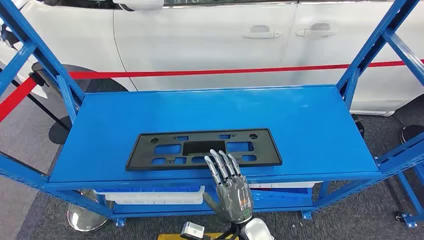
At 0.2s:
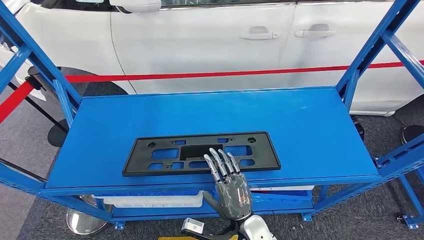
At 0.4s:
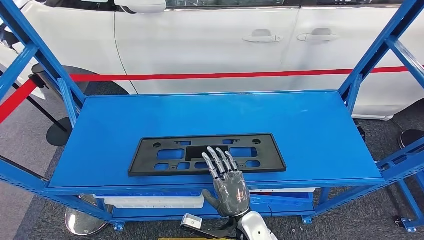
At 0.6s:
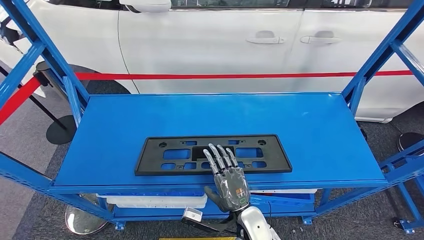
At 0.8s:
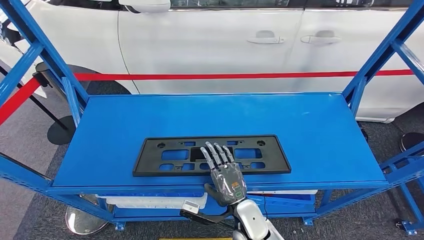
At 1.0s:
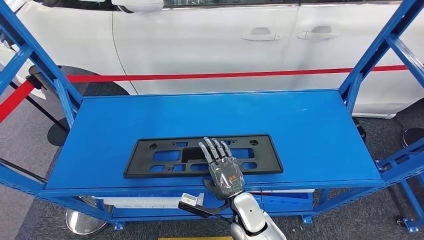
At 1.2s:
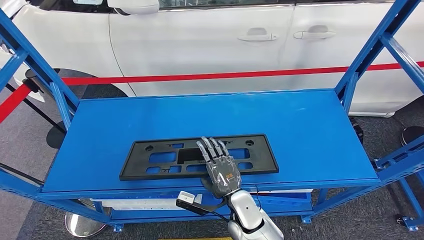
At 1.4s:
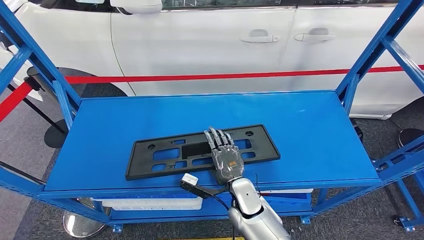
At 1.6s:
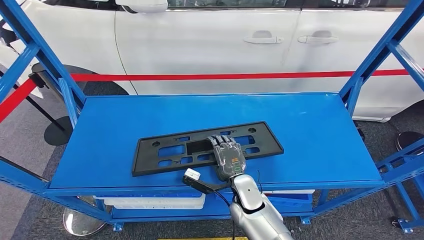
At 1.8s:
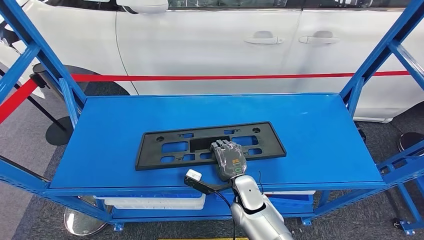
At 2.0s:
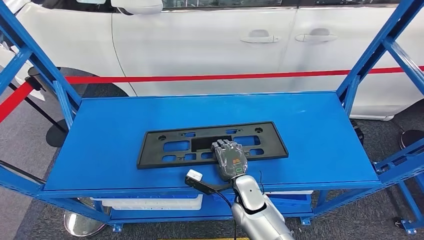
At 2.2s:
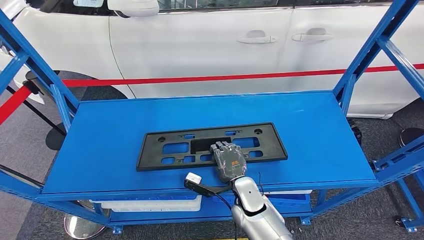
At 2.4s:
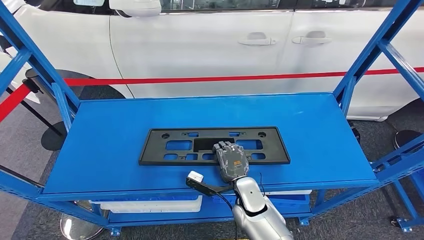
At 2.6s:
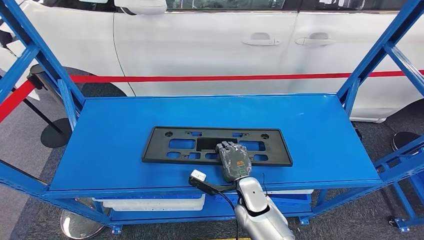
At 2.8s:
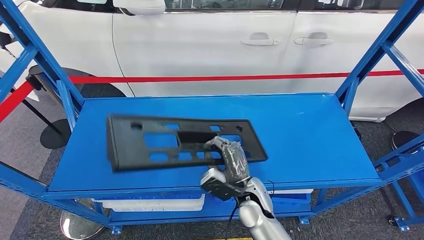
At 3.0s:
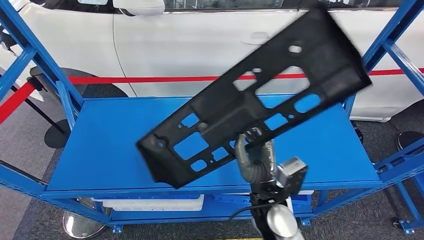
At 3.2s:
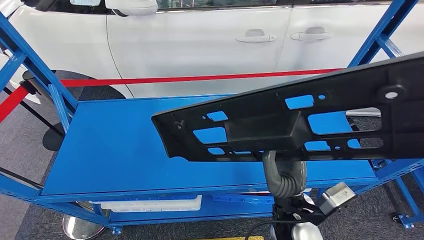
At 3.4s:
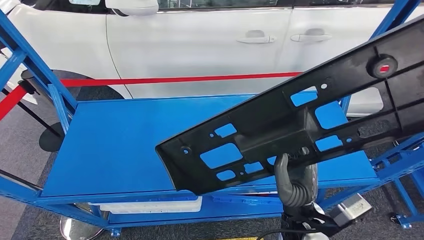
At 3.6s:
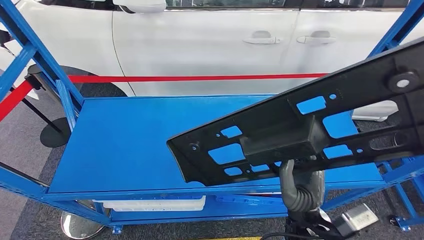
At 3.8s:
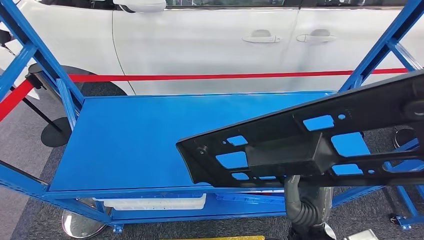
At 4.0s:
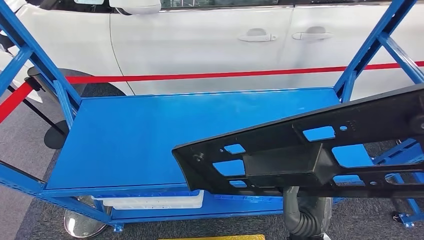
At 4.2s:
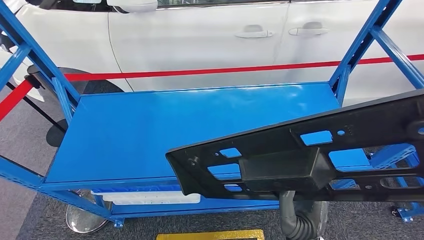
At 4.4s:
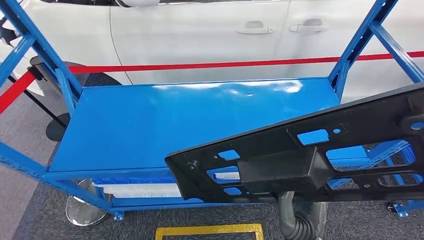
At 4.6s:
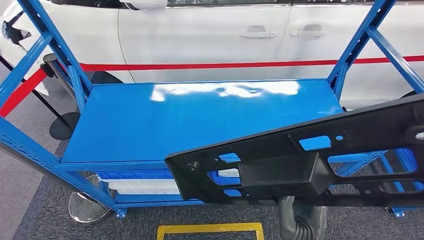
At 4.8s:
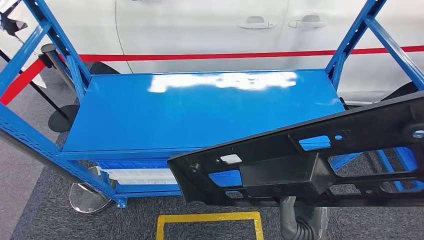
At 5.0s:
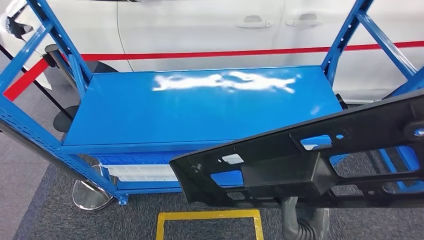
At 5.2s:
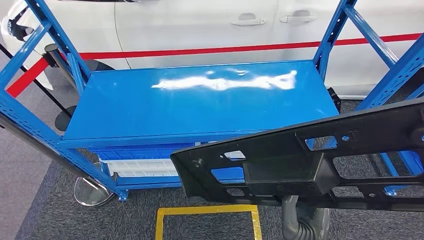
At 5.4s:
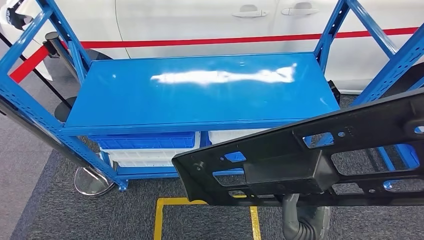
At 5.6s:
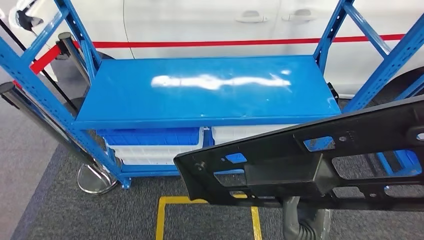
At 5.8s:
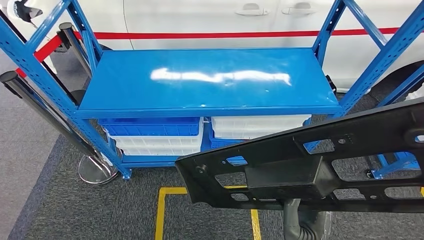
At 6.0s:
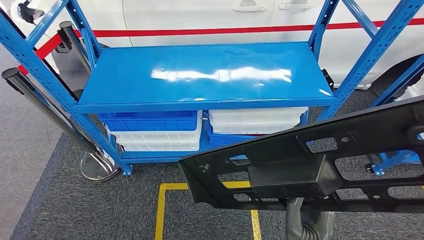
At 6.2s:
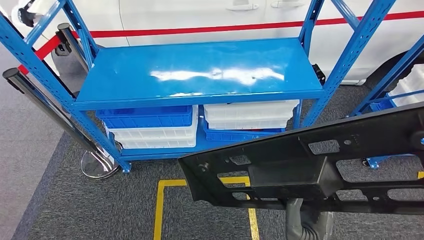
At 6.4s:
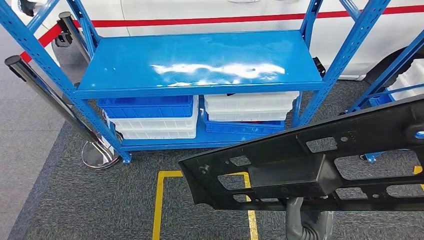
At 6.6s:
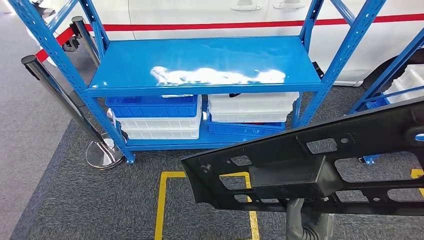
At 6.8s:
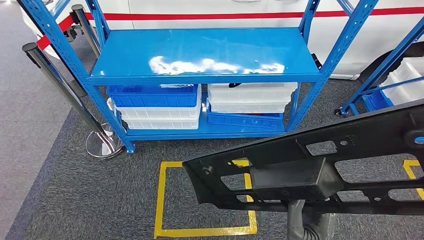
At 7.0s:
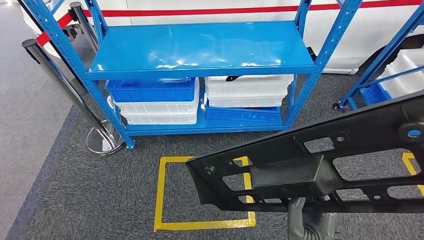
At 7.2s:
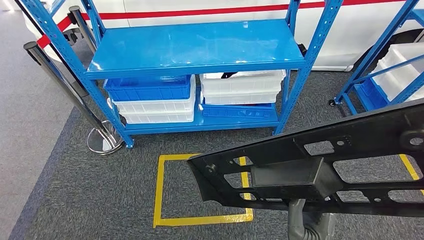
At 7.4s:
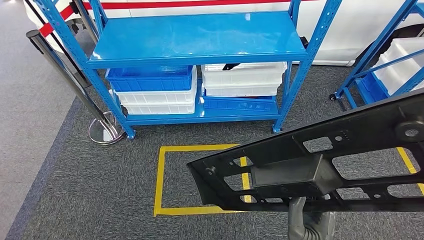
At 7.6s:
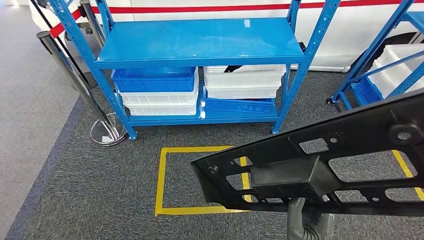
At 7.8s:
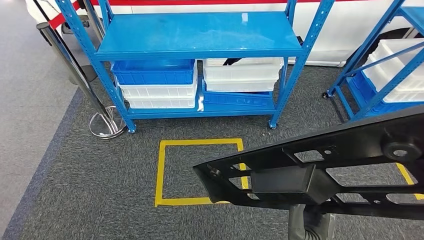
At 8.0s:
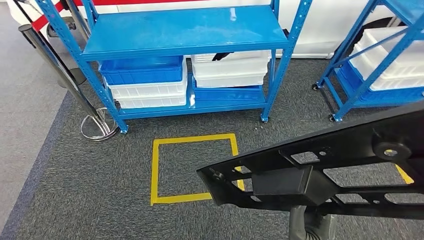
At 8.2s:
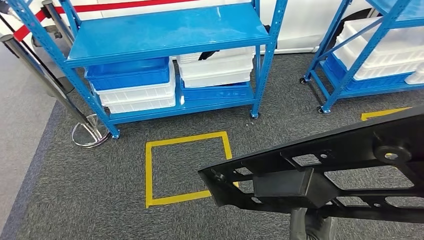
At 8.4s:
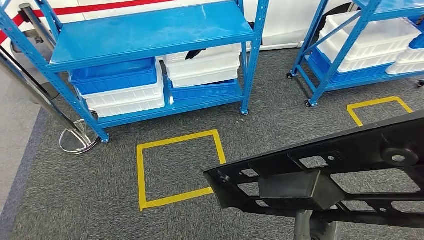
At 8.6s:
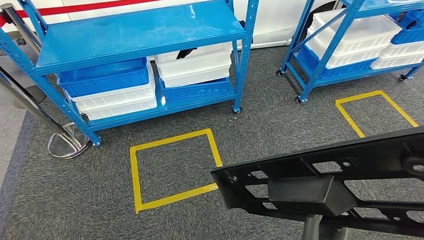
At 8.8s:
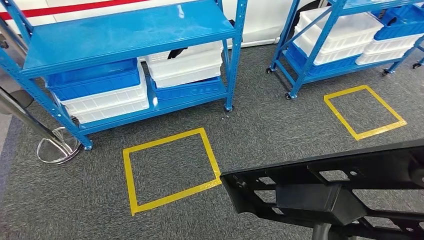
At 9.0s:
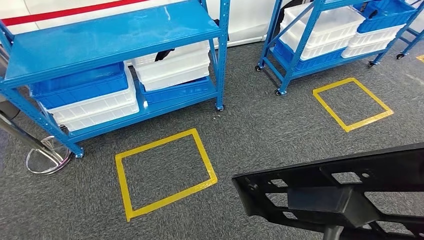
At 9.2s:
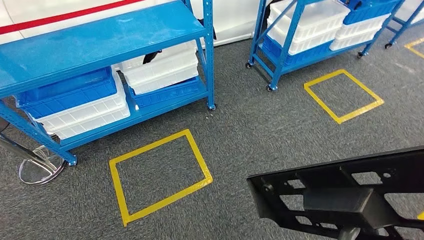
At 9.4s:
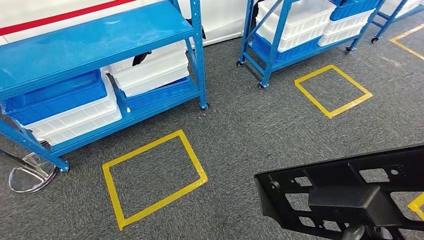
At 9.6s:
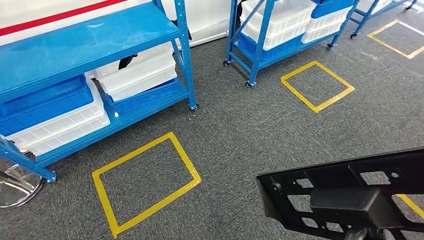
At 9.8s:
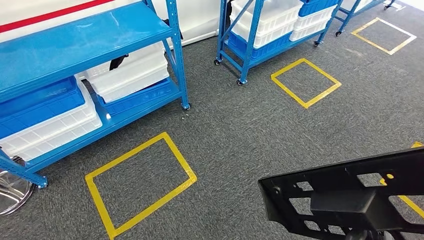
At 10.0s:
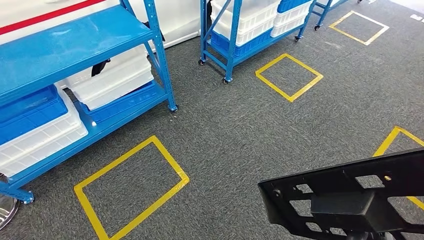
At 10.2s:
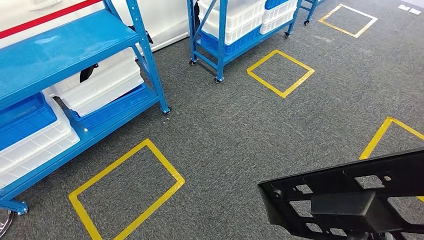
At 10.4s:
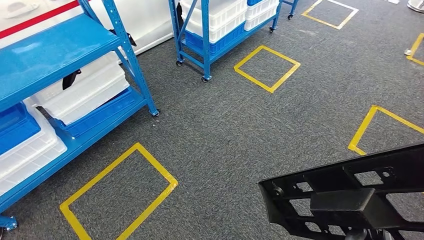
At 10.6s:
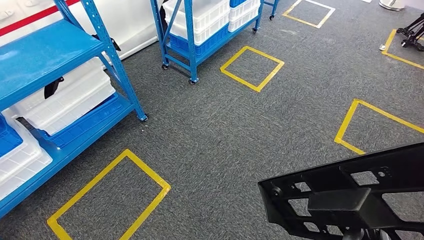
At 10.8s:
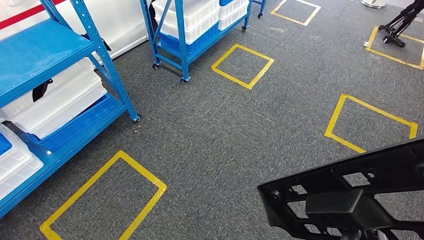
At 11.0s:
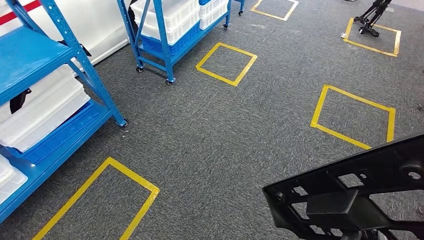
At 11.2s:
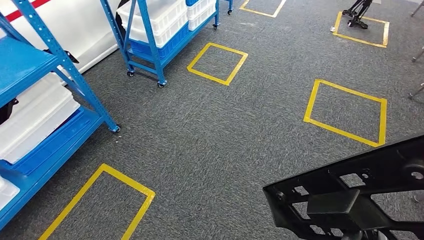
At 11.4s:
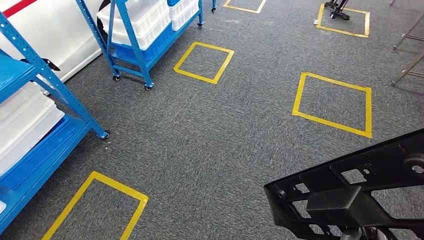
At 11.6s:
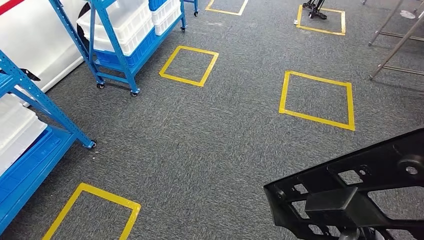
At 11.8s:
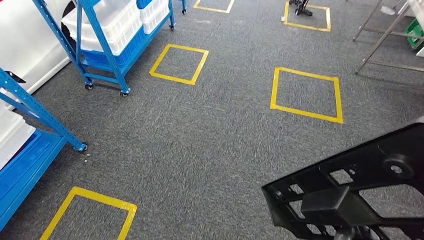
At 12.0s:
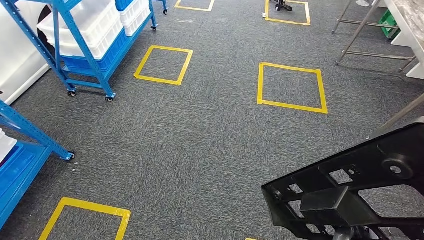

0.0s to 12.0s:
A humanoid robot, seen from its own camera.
Step, 0.0s to 6.8s: Pick up the large material from the shelf.

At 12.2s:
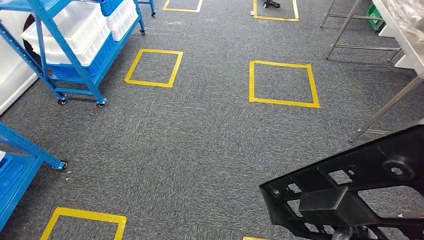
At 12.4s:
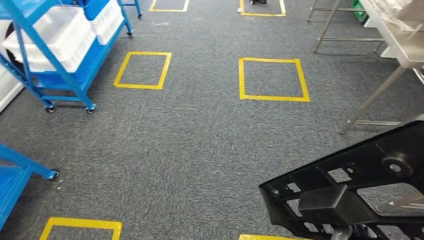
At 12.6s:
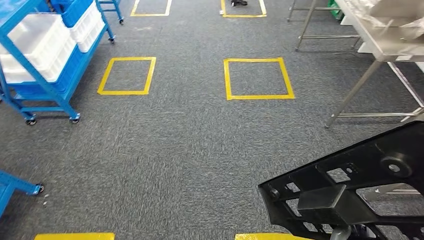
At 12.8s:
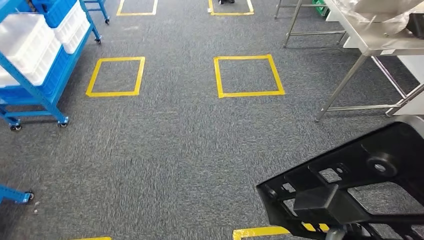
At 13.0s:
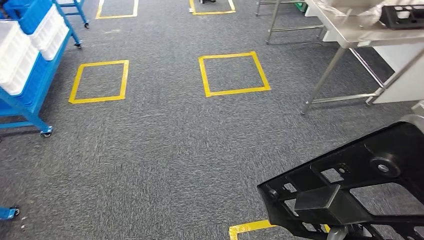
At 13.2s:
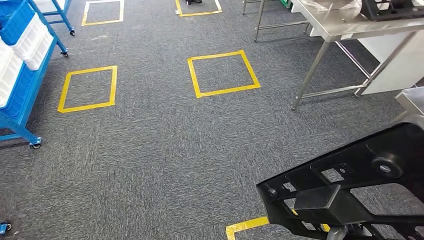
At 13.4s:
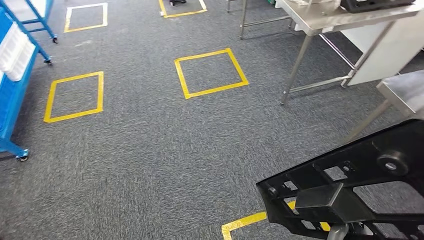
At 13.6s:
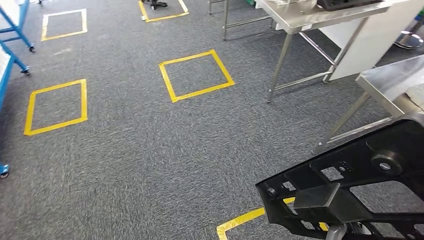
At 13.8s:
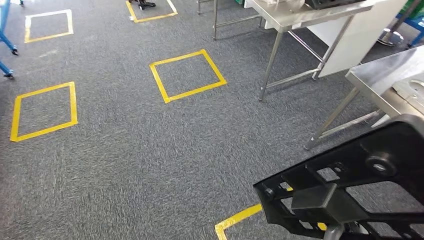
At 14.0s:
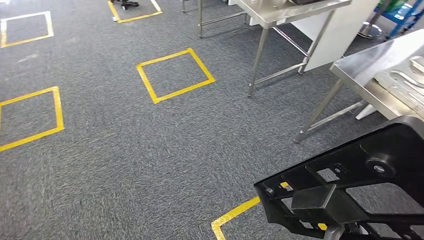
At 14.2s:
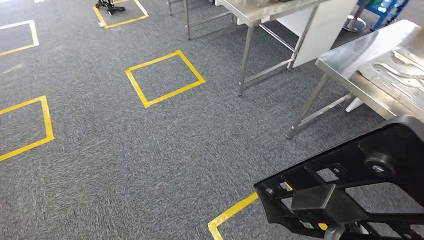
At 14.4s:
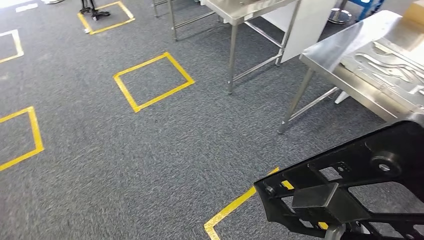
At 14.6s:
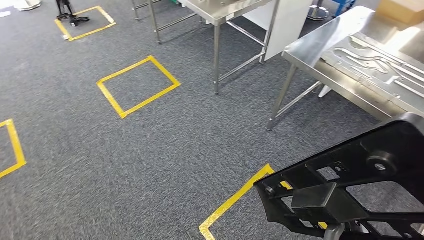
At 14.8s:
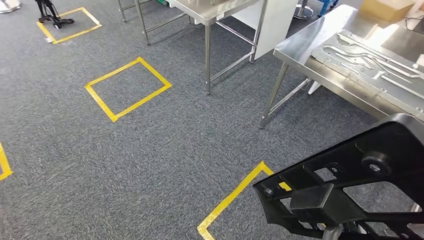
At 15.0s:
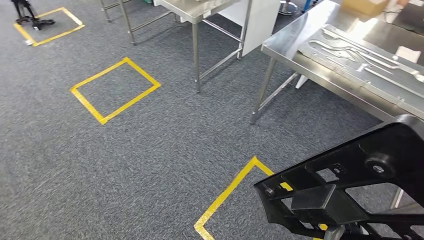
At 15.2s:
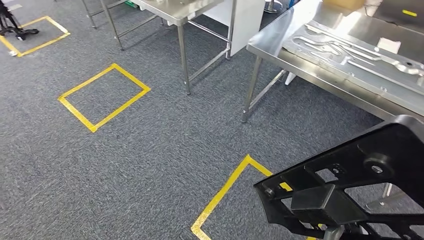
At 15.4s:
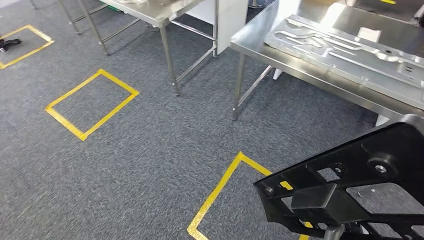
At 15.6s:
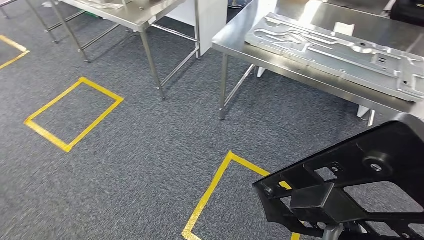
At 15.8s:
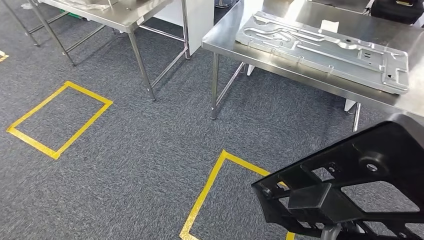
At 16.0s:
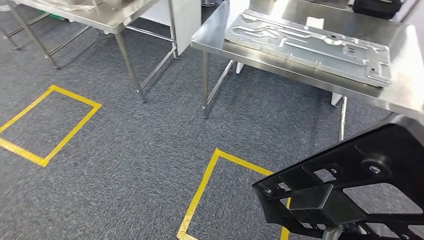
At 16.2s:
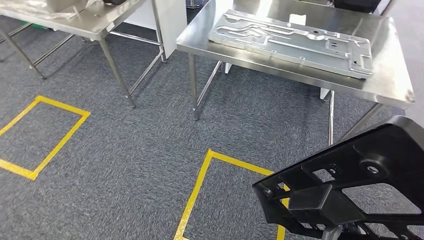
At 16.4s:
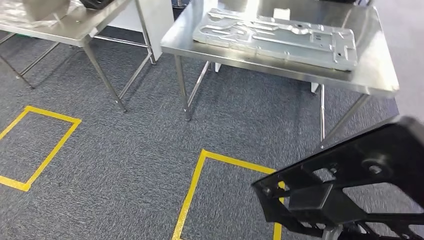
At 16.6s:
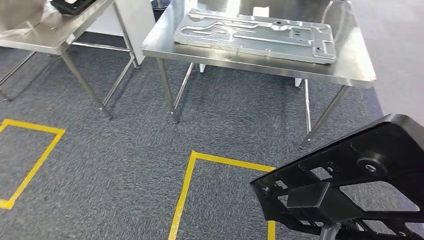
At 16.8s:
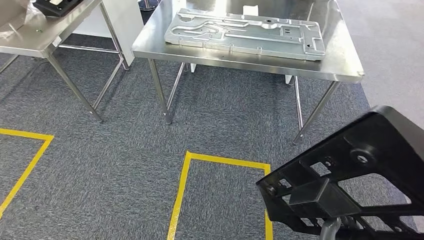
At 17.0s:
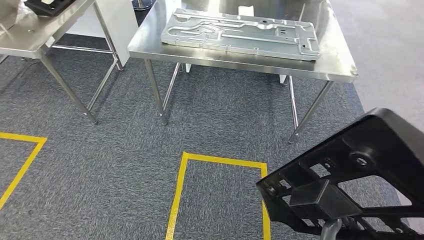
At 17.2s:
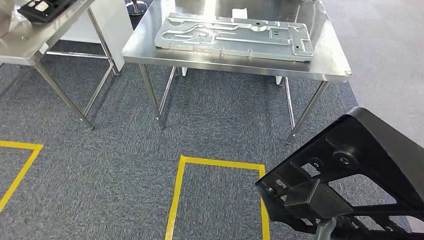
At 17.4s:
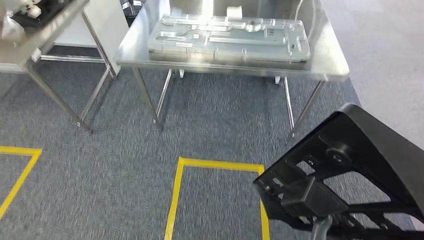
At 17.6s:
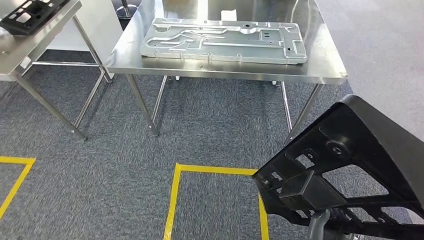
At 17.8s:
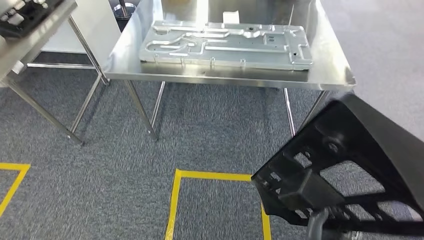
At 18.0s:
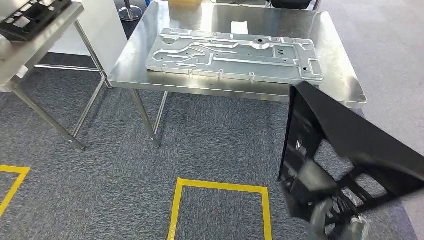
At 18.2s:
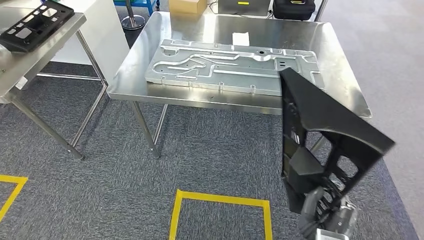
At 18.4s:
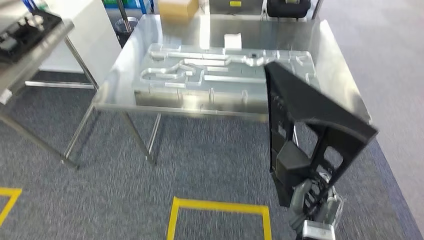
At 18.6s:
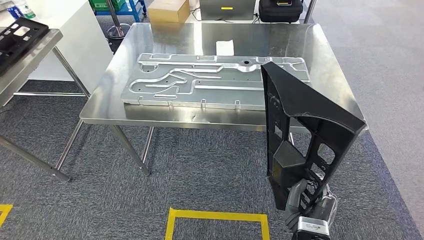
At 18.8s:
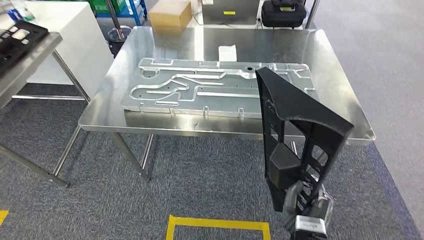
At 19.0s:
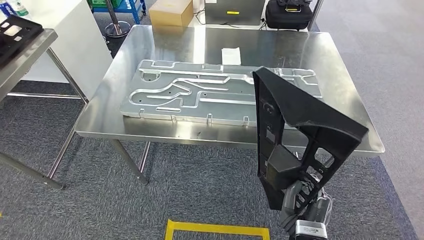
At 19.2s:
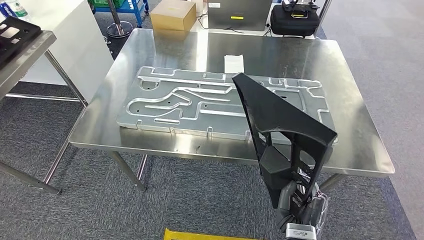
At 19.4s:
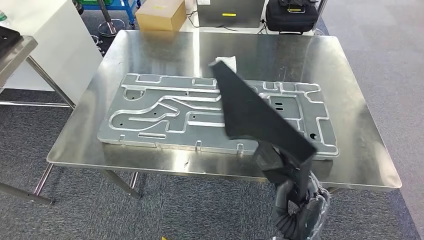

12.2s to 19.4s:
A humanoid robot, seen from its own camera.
Step, 12.2s to 19.2s: Move the large material to the front of the workbench.
